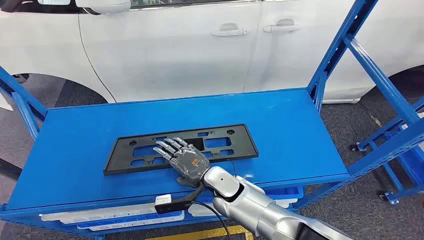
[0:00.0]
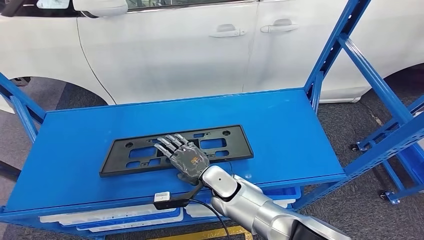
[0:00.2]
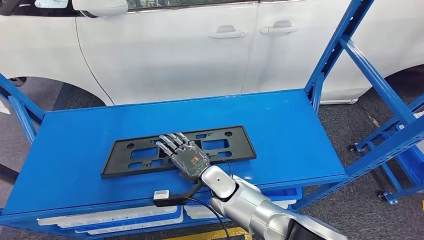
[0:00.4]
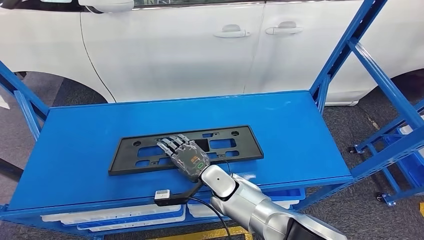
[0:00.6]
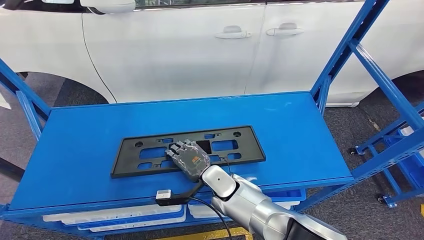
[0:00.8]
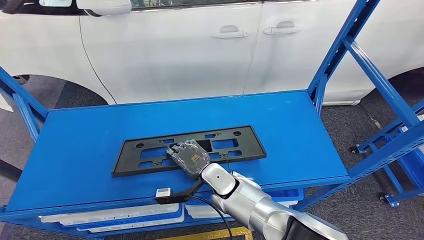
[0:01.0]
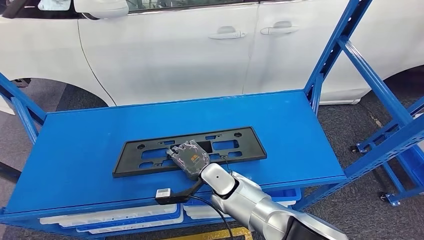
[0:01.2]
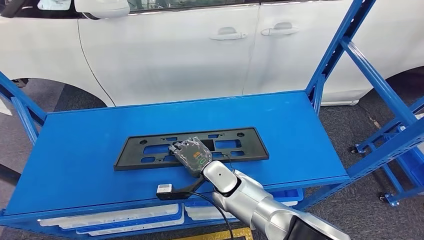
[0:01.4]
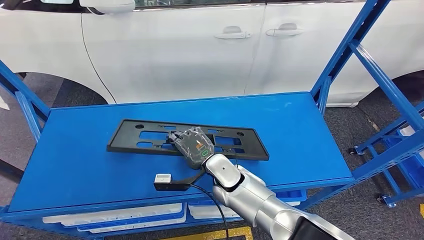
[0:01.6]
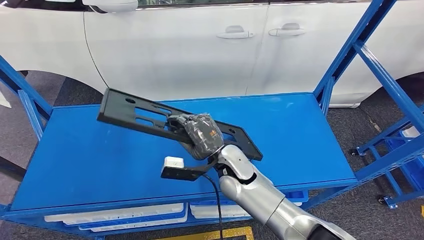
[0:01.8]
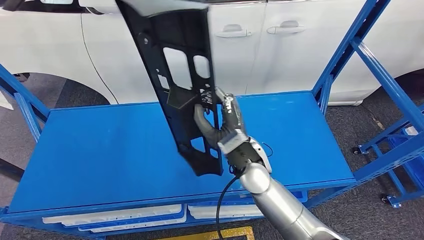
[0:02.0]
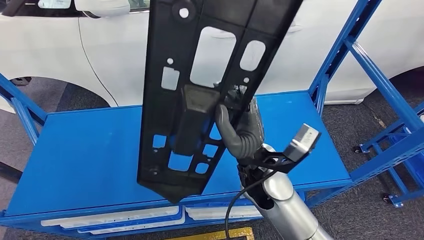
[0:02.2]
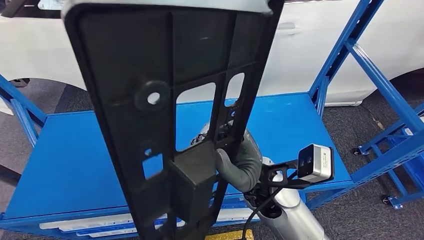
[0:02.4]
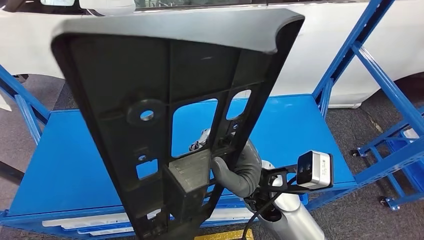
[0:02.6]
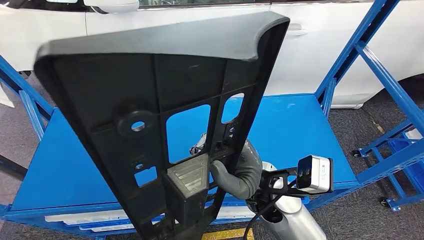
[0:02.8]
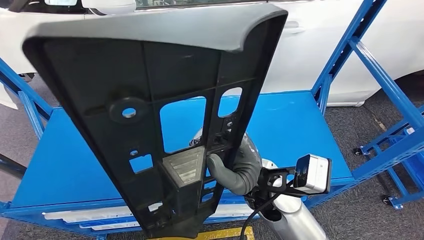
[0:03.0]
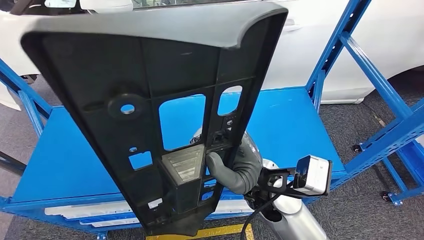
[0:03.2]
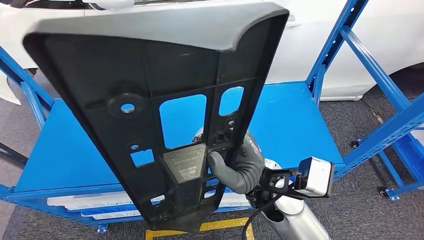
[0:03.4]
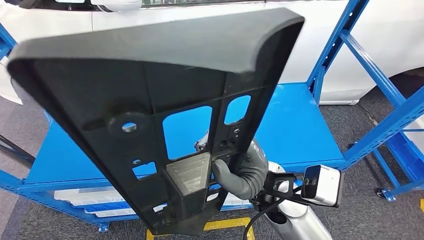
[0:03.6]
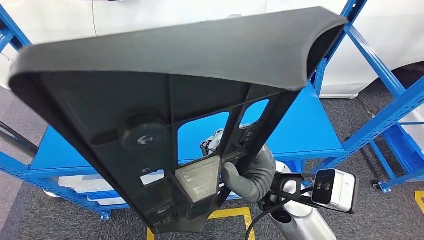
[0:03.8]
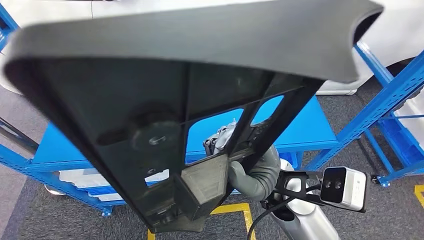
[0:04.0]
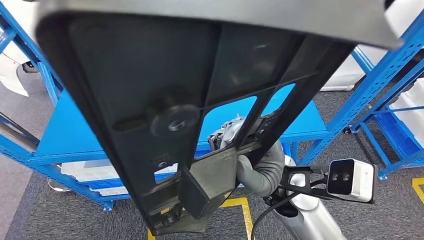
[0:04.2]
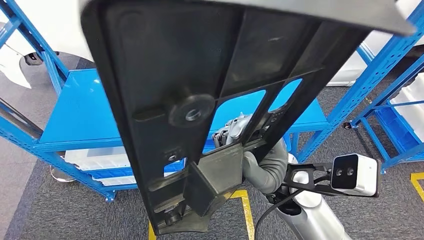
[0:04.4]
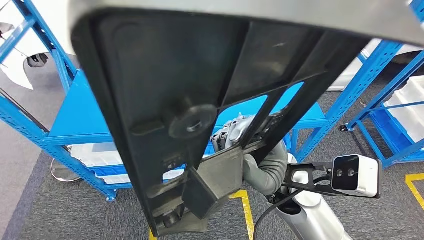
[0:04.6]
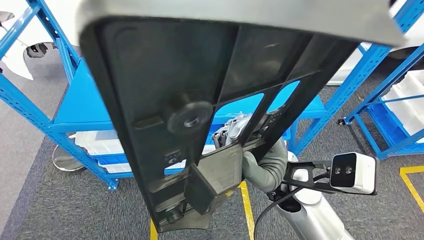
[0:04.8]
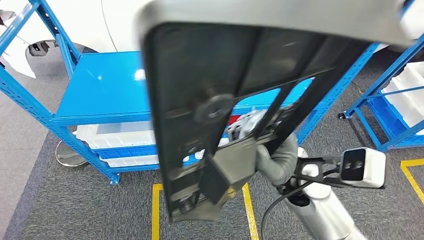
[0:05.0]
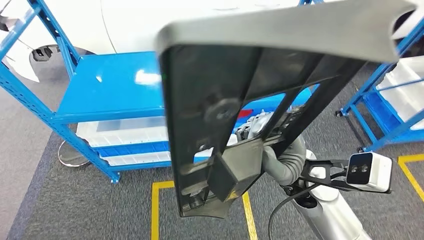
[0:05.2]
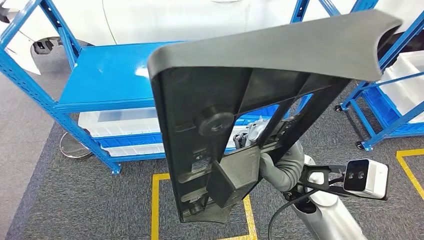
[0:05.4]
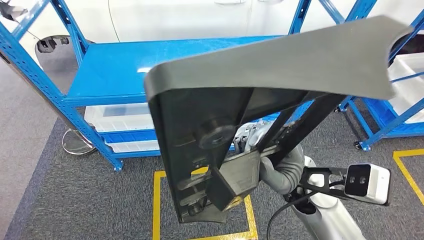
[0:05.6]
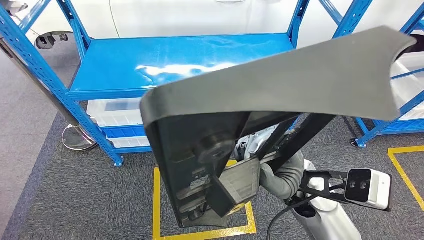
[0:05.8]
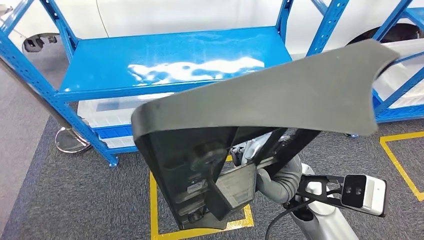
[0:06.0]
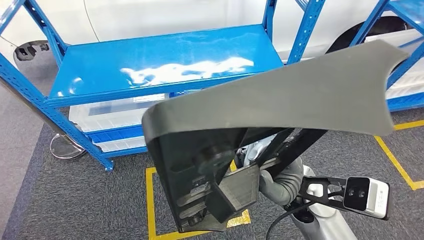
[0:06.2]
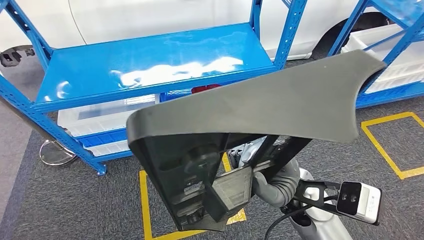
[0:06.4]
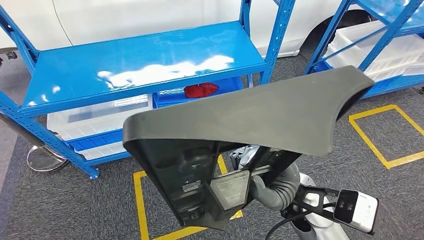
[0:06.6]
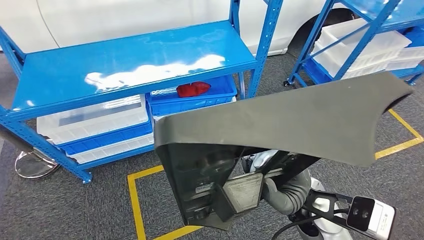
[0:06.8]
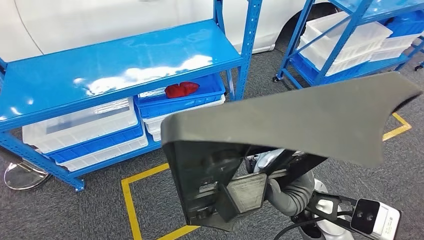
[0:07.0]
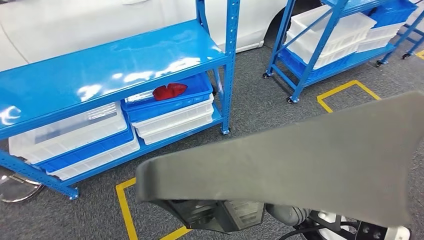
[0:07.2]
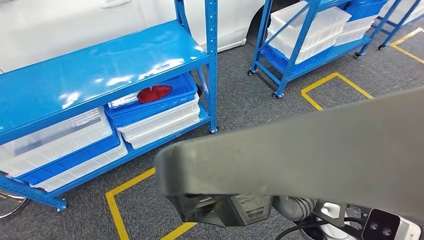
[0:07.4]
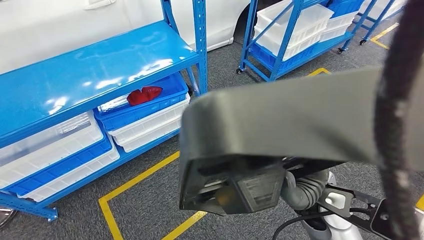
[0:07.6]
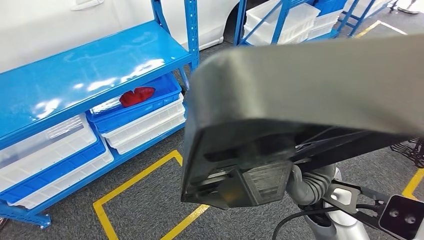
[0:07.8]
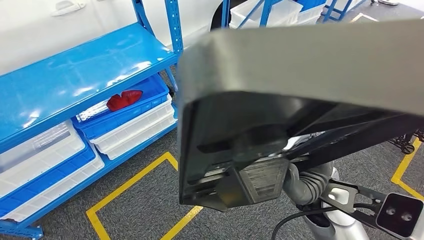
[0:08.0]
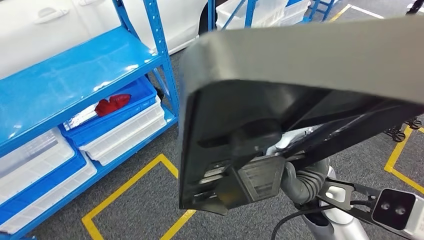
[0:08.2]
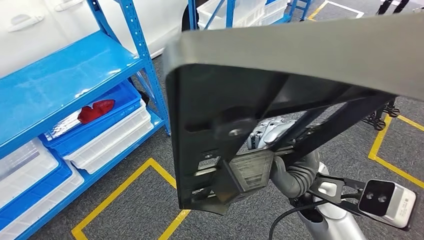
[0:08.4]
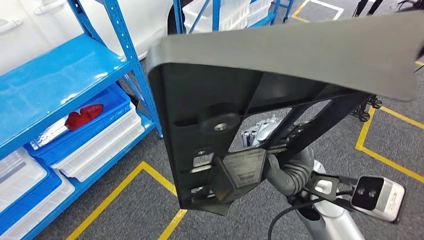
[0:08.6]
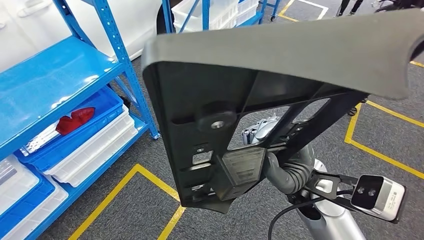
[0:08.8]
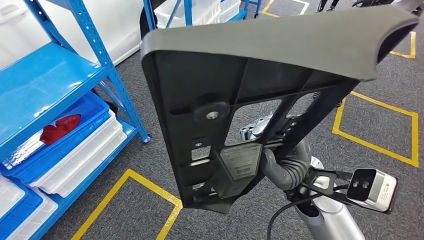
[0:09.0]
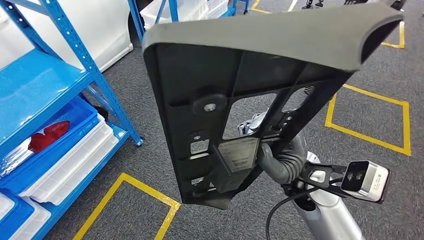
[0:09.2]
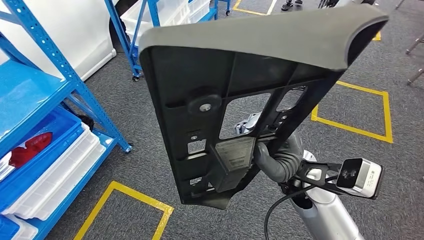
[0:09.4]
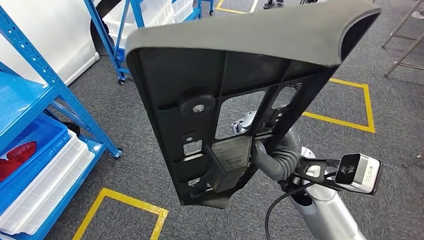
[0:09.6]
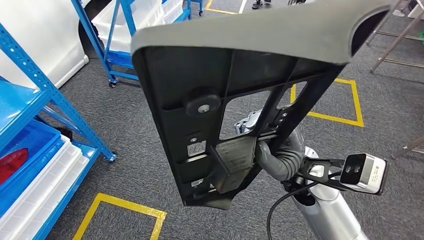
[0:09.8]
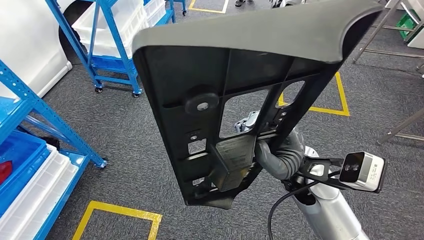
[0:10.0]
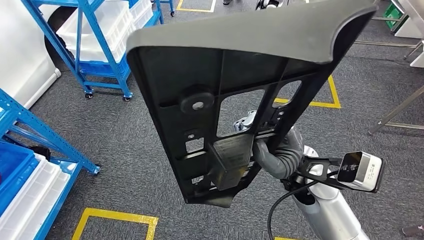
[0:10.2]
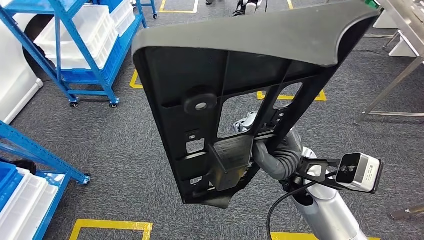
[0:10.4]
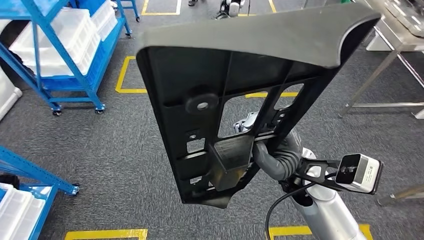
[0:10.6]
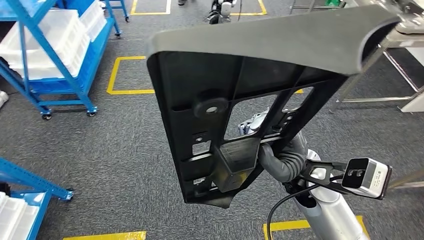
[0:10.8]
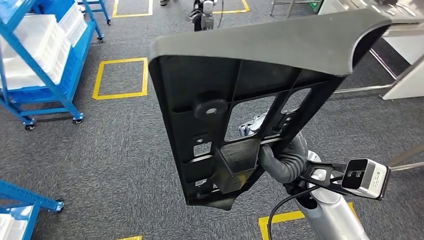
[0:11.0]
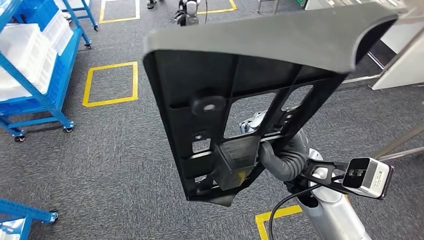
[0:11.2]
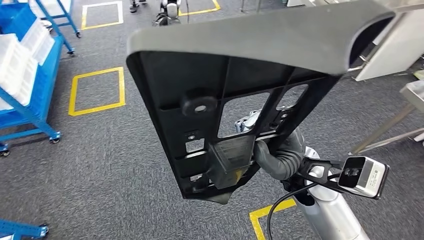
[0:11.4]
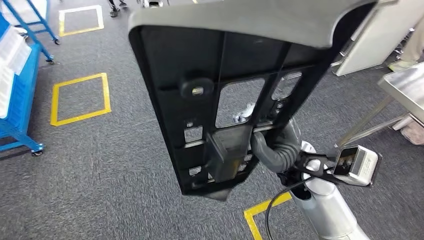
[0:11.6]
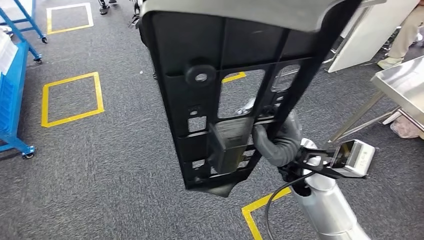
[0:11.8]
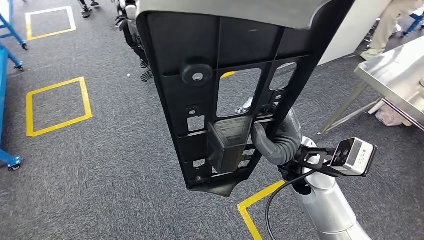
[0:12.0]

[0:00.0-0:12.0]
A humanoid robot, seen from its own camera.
Step, 0:00.0 to 0:03.0: Pick up the small parts from the shelf.

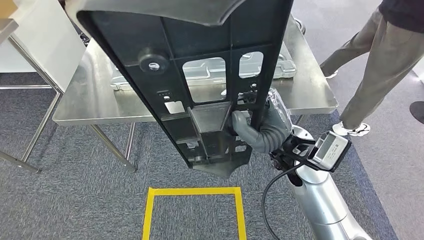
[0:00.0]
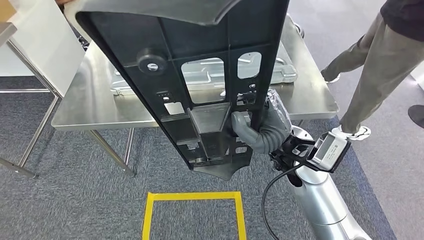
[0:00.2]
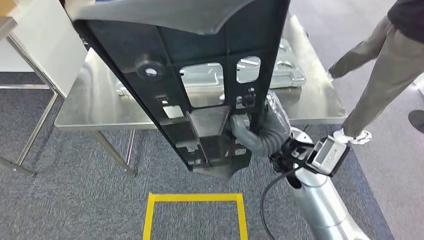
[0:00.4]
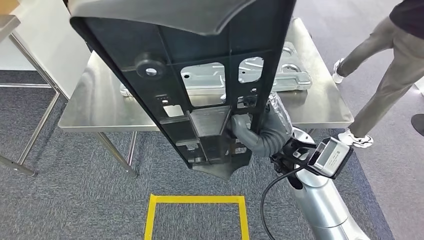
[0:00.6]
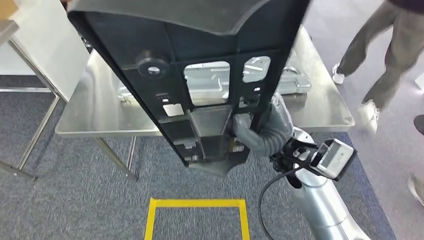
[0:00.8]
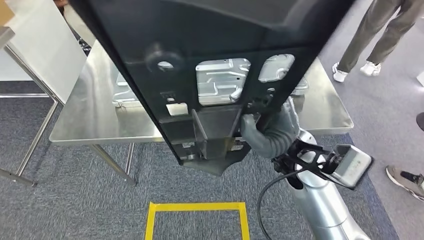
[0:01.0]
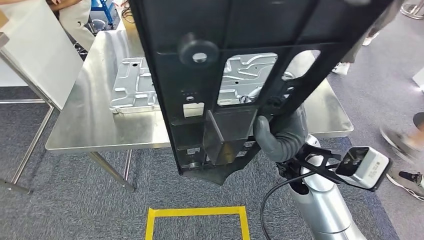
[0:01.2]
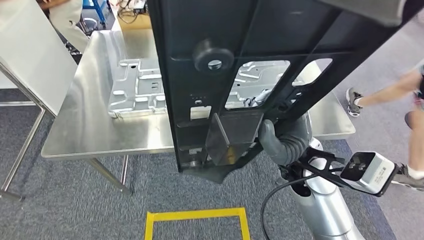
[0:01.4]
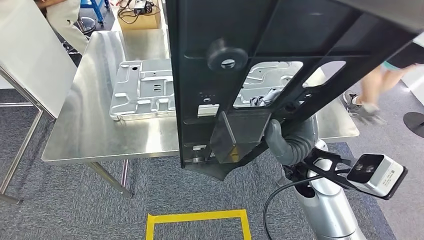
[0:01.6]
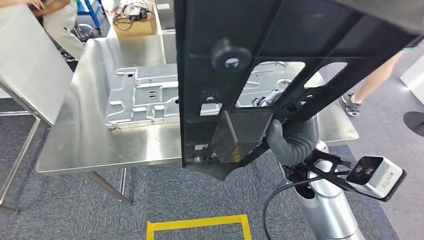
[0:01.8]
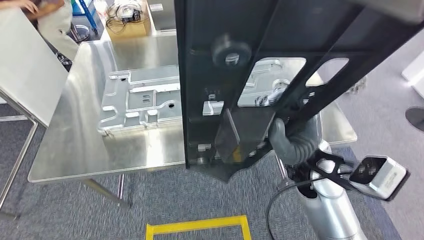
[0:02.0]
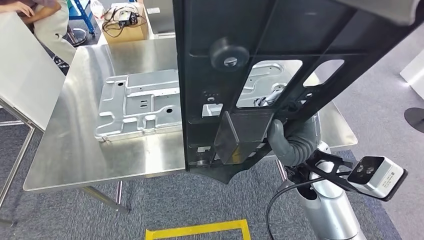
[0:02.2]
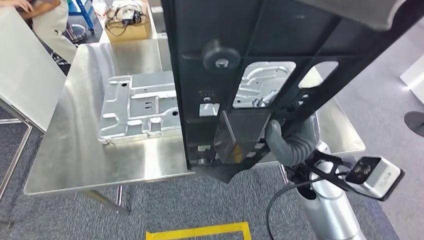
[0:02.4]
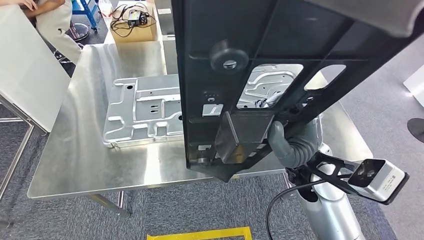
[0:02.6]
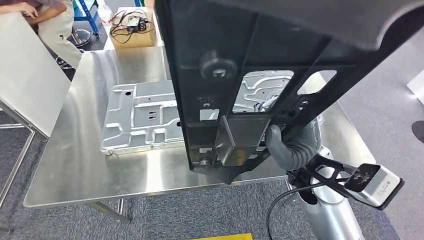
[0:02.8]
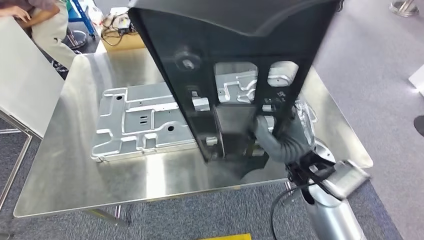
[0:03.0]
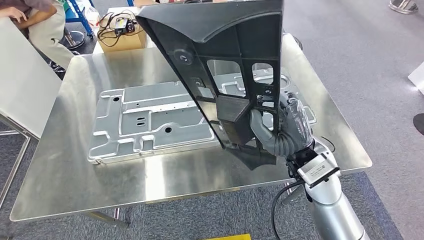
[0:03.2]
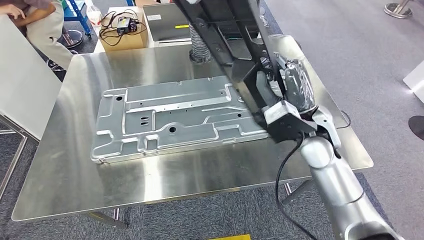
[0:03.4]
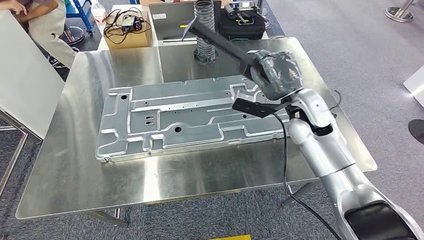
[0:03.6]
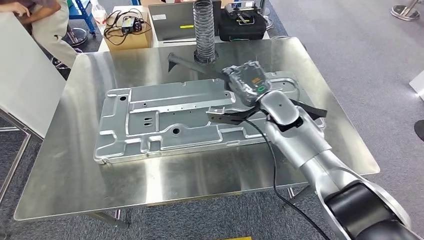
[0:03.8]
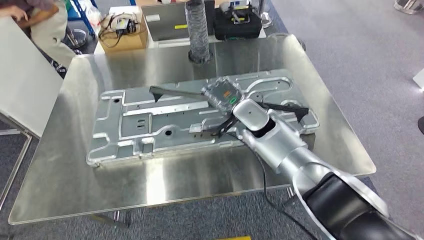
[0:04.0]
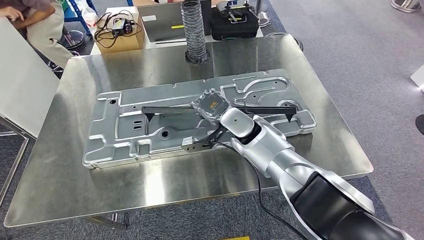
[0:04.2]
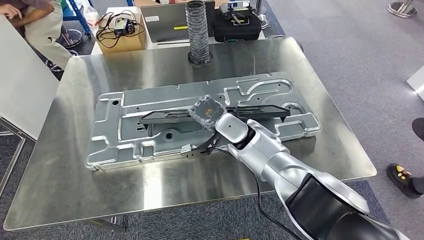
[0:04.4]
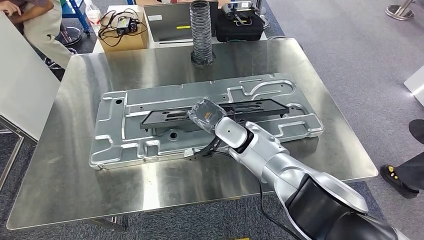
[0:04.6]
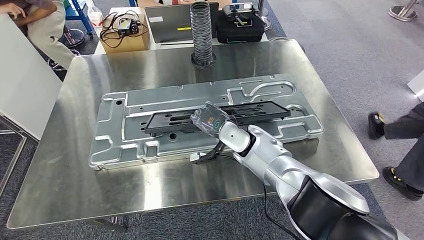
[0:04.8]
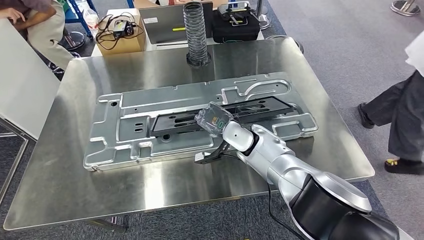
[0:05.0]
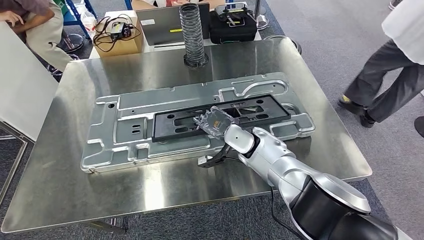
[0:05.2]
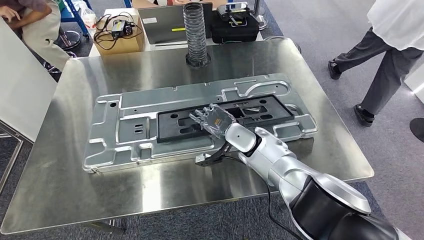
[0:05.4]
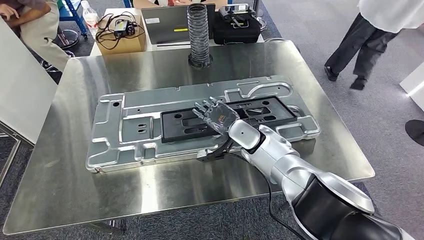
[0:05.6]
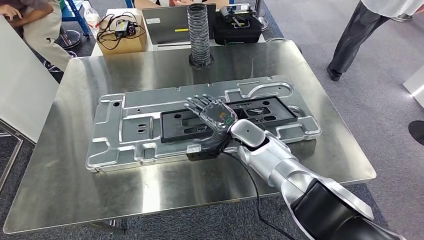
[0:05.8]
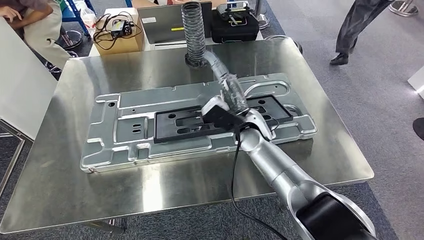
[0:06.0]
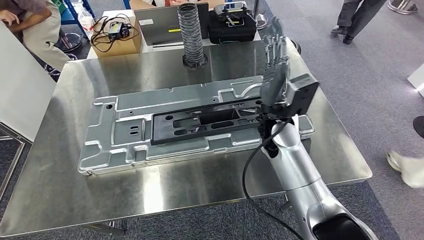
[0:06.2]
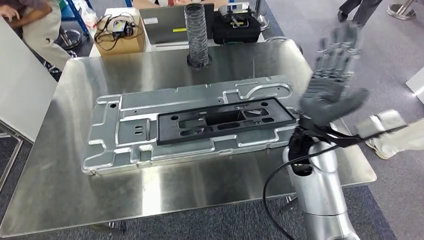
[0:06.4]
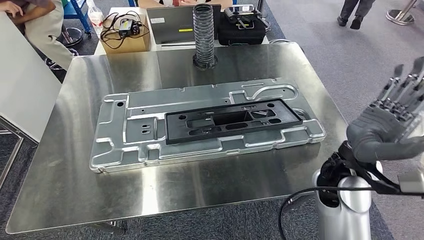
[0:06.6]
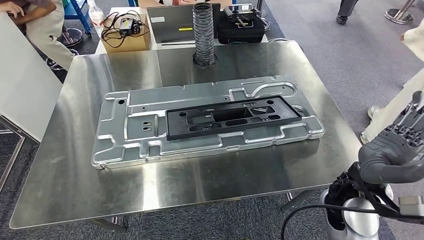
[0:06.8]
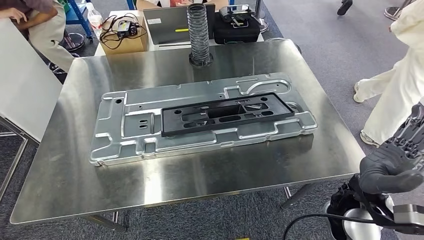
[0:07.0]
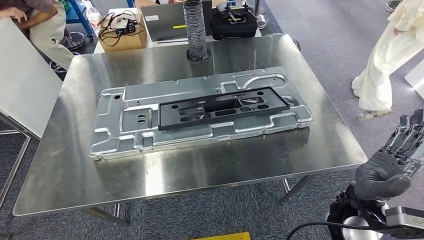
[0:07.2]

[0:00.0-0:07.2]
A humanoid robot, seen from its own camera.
Step, 0:00.0 to 0:03.2: Move the small parts to the workbench.
